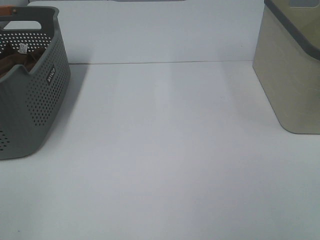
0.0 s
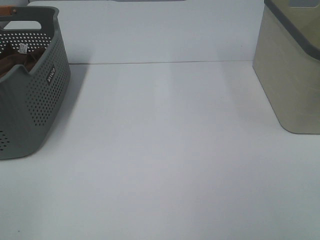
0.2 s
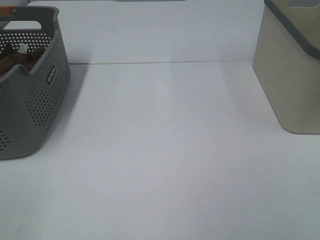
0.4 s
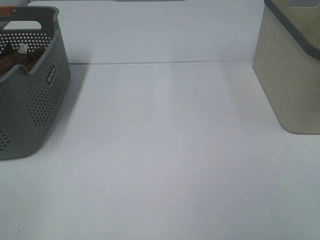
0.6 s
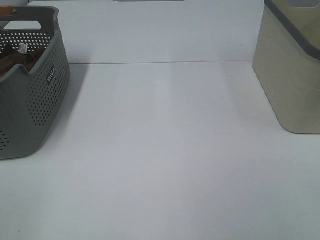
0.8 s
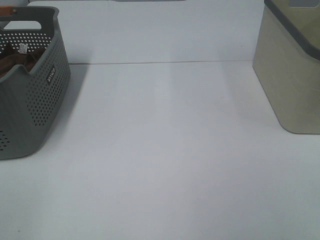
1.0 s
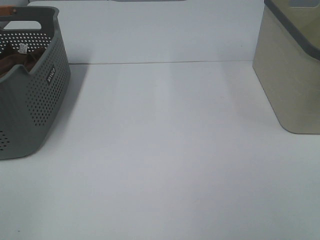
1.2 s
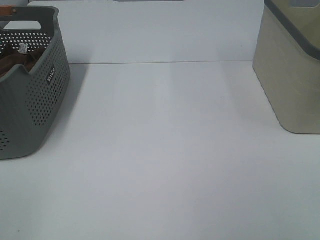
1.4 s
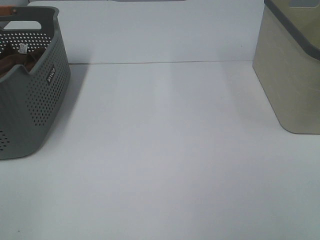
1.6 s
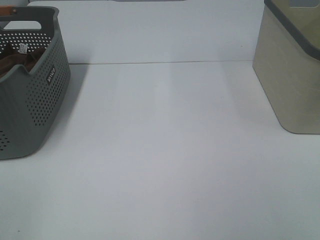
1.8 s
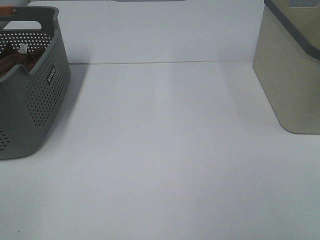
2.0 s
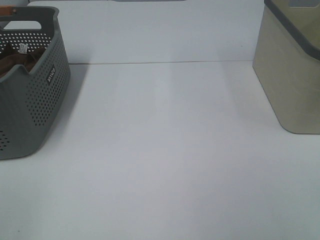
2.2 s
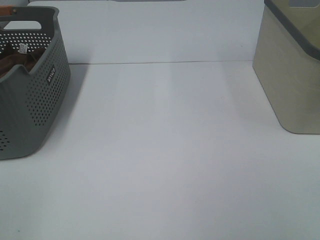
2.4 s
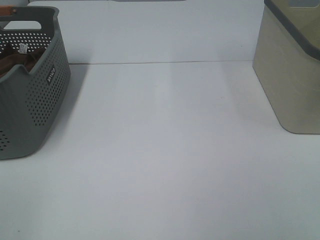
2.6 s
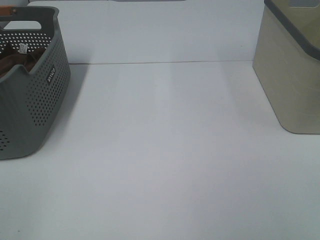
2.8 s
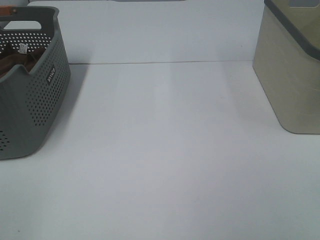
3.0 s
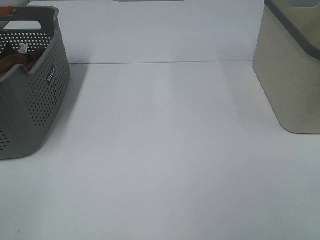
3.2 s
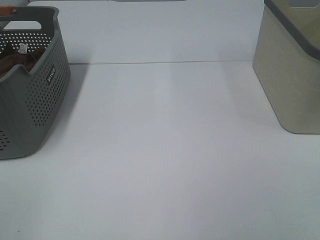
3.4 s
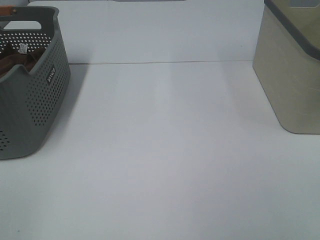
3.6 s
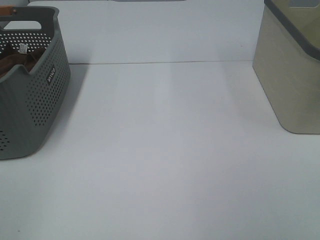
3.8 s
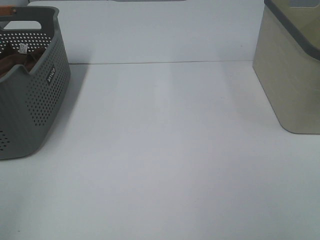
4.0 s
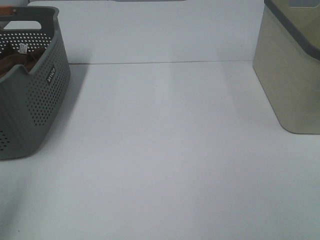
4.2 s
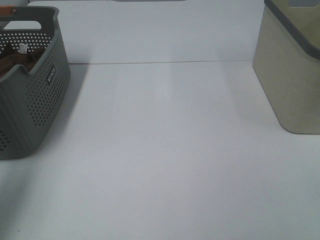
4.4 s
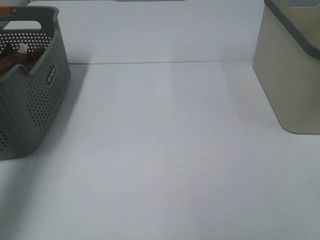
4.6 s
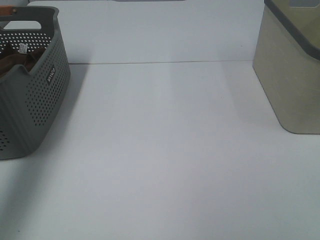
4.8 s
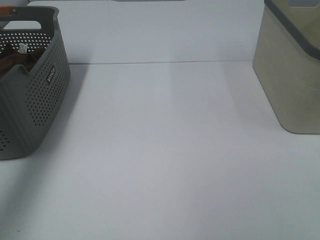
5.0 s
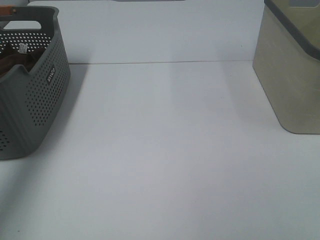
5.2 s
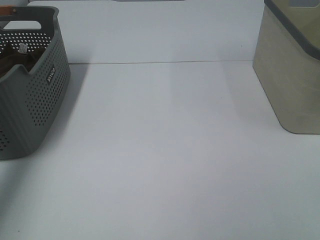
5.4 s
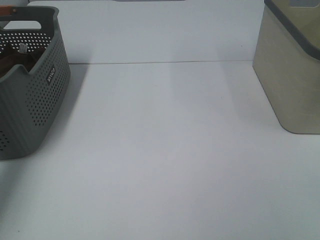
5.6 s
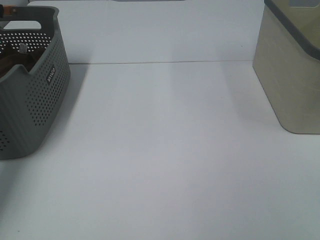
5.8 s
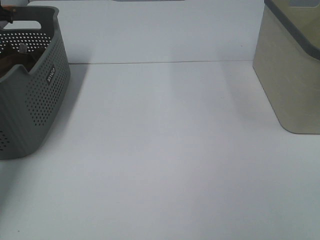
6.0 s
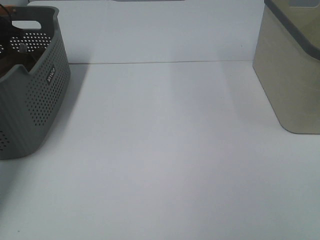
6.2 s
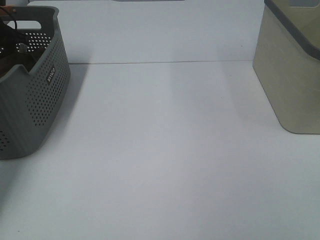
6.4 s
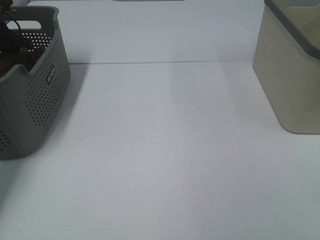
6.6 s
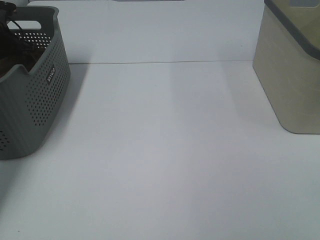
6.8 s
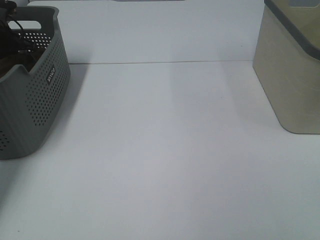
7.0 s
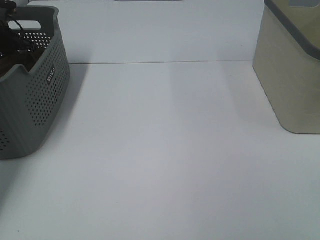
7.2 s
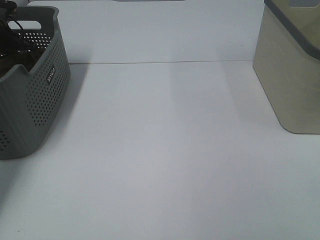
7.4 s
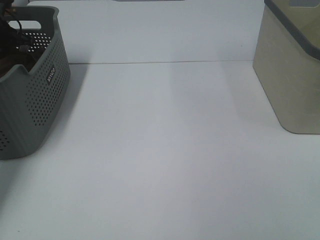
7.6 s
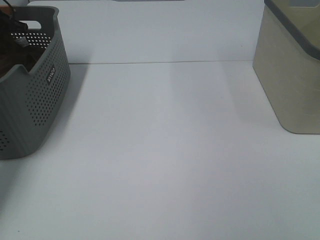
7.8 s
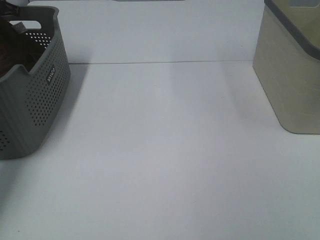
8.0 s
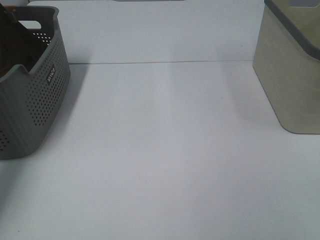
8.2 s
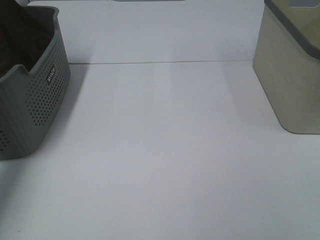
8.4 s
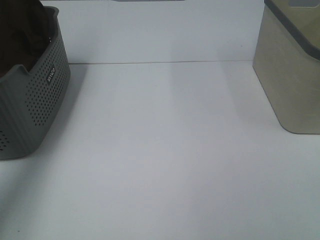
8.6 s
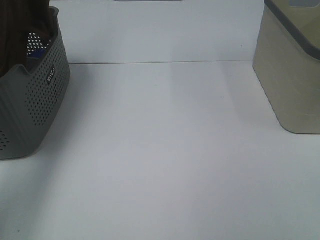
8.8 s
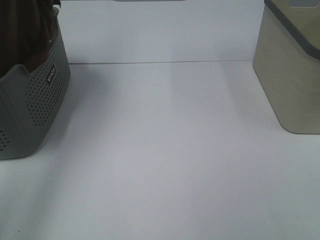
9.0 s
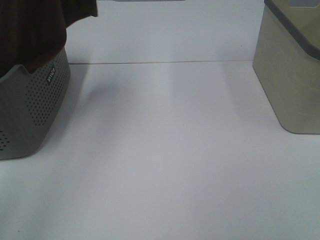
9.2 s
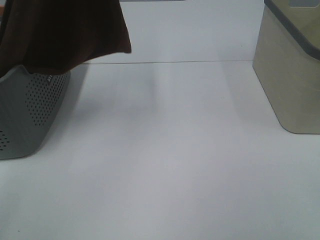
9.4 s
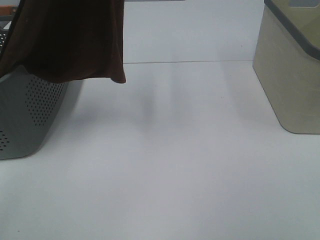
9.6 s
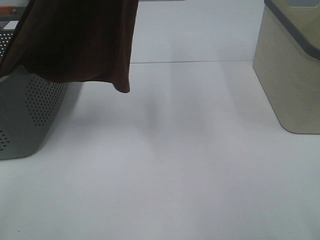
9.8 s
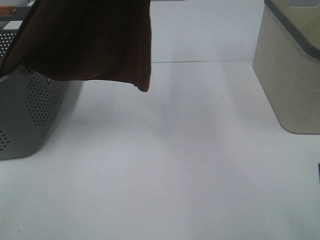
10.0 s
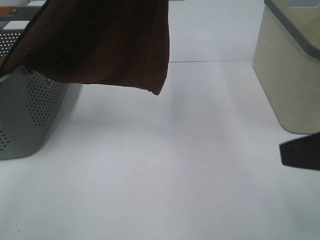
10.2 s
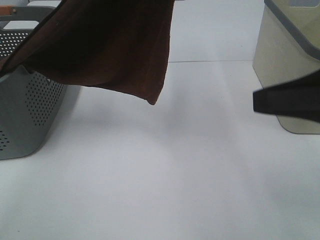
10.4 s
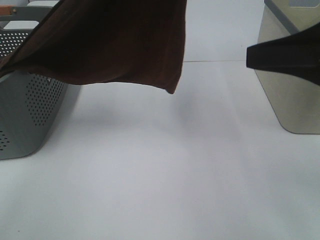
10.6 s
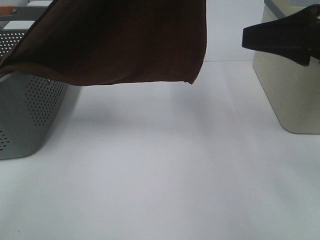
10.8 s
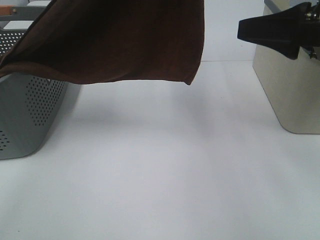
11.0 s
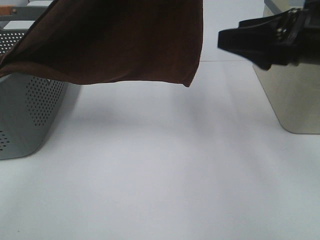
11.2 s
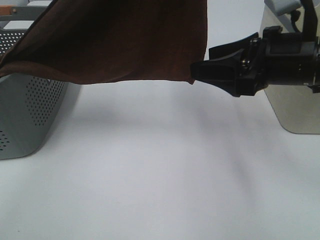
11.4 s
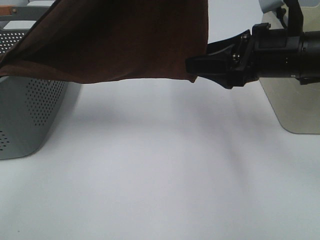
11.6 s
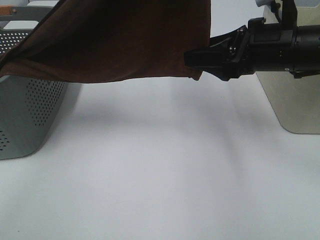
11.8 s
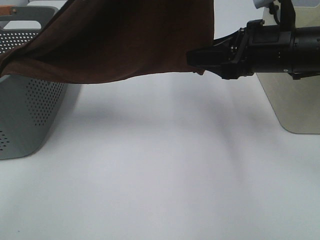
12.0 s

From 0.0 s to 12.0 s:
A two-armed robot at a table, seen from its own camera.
Task of the whole recording: Remove the towel and place it.
Step, from 8.8 s to 11.4 s: Right hand: grab a corner of the brown towel and straighten it.
From 0.0 s to 3.0 s: Both grippers stay about where they are.
From 3.0 s to 4.4 s: The left gripper shifts roughly 15 cm forward.
From 4.4 s to 6.0 s: The left gripper moves forward, some 35 cm.
From 6.0 s to 7.6 s: The left gripper goes some 5 cm downward, and closes its fingers.
From 7.6 s to 9.0 s: The left gripper heads upward, backward and to the right, covering some 40 cm.
From 9.0 s to 10.4 s: The right gripper travels forward by about 15 cm, while the left gripper moves to the right and backward, some 20 cm.
From 10.4 s to 12.0 s: The right gripper is displaced forward and downward by approximately 15 cm, and closes up.

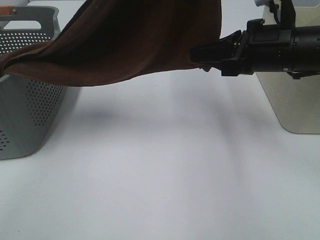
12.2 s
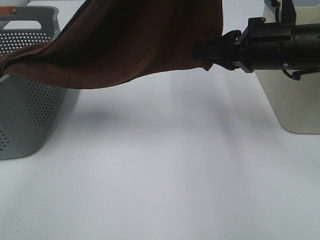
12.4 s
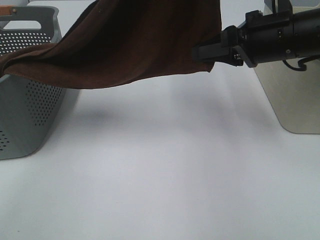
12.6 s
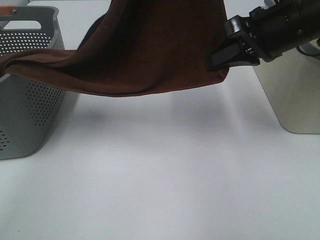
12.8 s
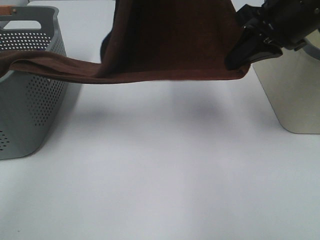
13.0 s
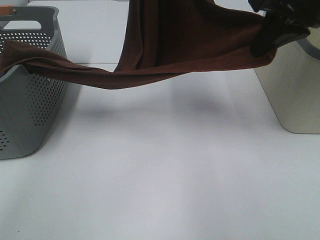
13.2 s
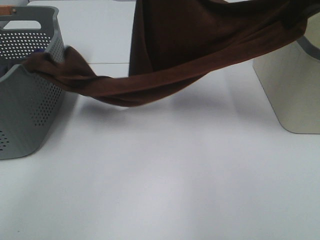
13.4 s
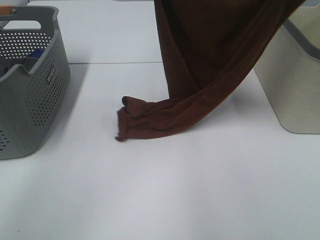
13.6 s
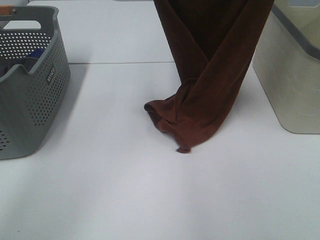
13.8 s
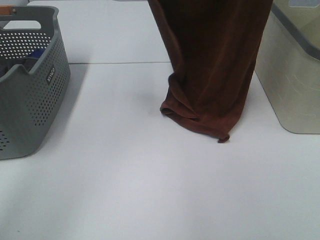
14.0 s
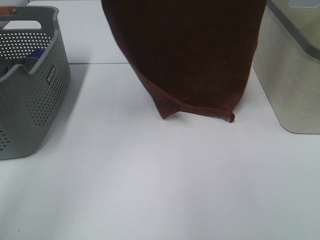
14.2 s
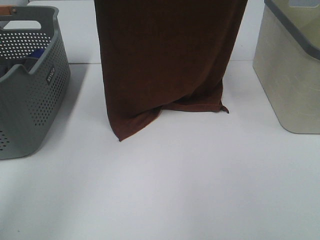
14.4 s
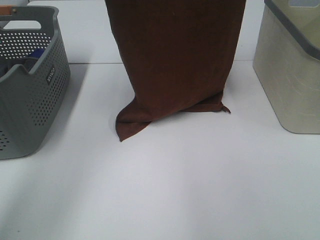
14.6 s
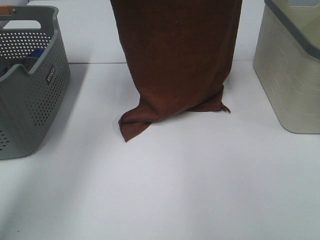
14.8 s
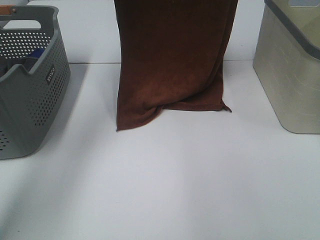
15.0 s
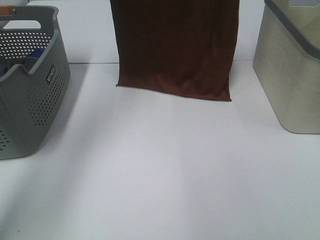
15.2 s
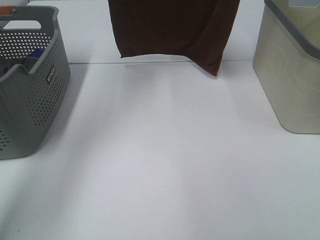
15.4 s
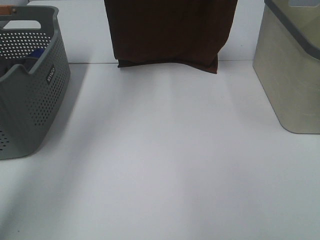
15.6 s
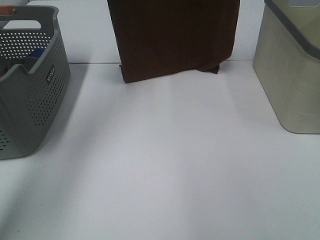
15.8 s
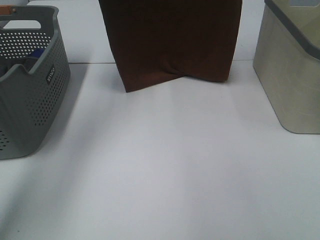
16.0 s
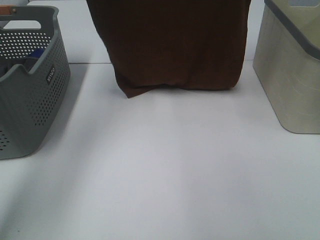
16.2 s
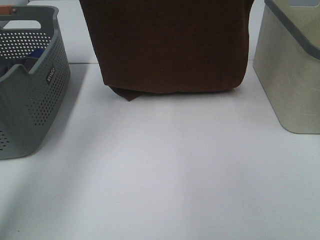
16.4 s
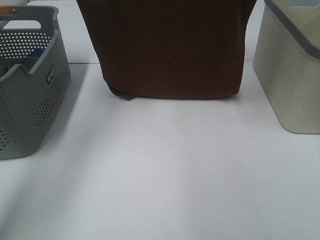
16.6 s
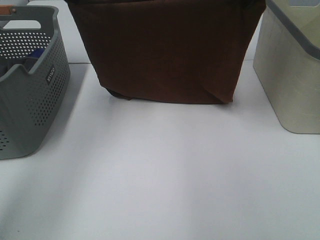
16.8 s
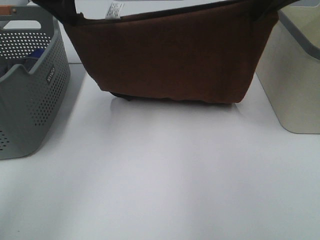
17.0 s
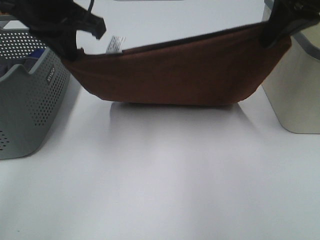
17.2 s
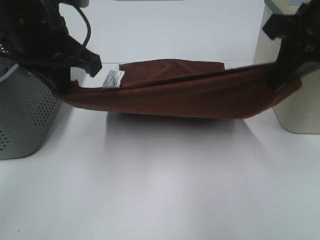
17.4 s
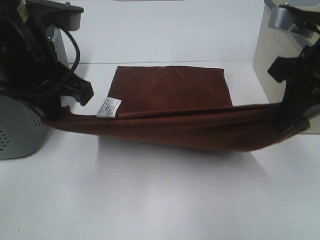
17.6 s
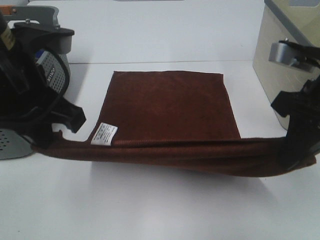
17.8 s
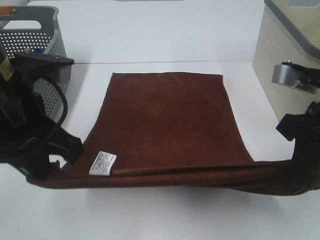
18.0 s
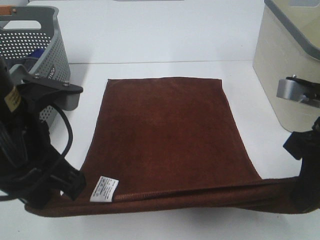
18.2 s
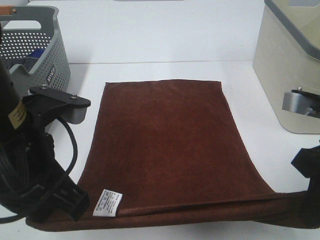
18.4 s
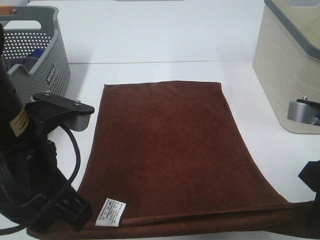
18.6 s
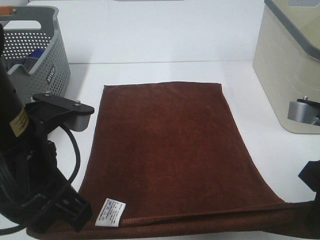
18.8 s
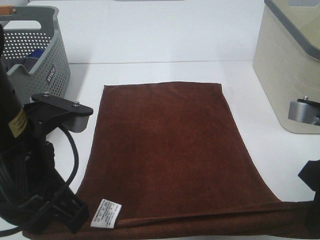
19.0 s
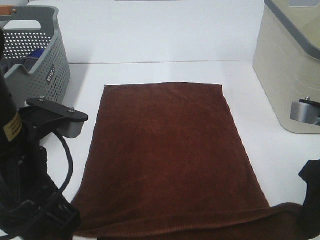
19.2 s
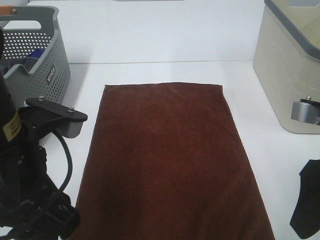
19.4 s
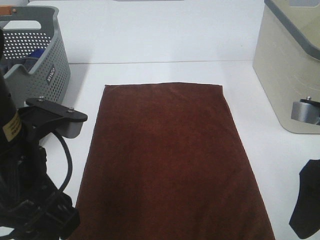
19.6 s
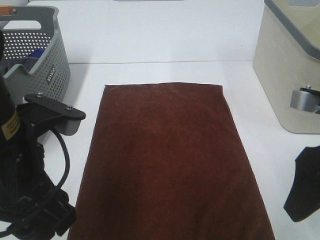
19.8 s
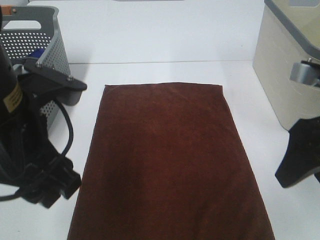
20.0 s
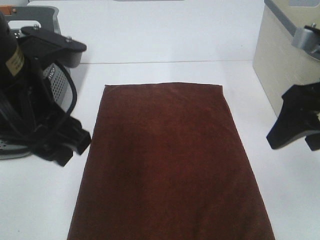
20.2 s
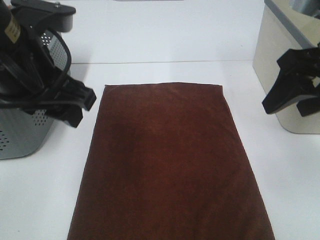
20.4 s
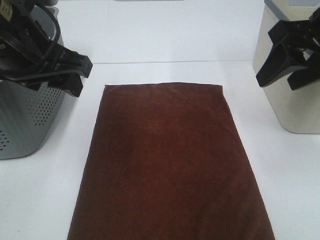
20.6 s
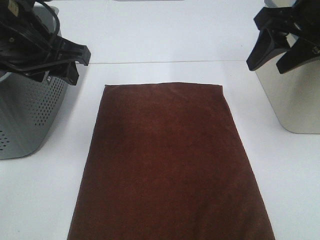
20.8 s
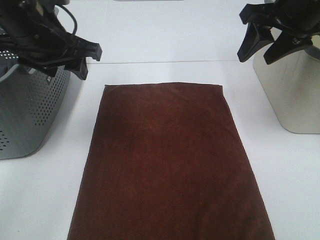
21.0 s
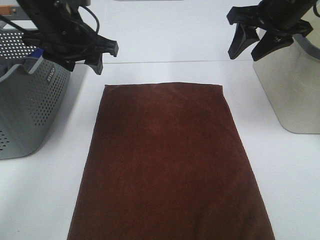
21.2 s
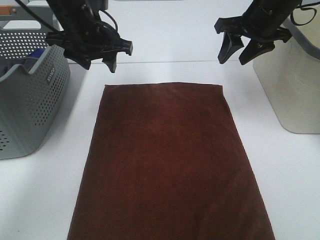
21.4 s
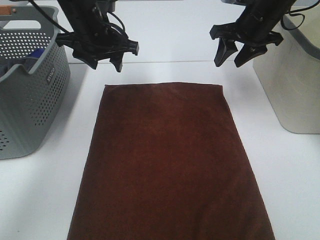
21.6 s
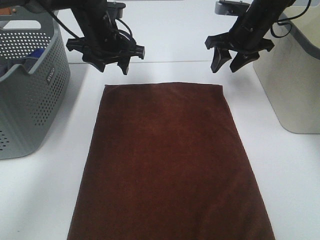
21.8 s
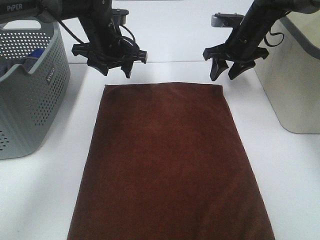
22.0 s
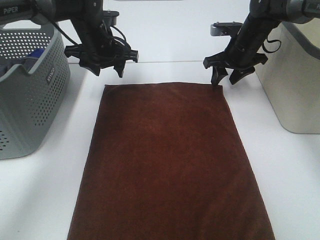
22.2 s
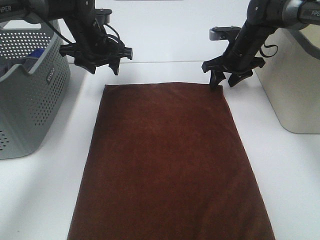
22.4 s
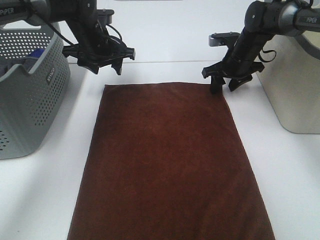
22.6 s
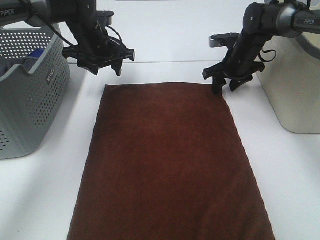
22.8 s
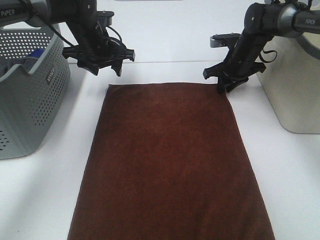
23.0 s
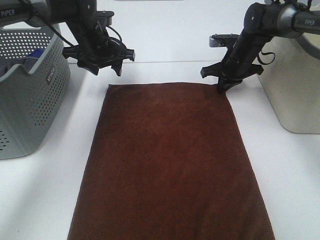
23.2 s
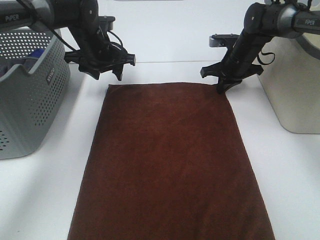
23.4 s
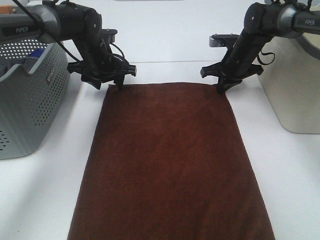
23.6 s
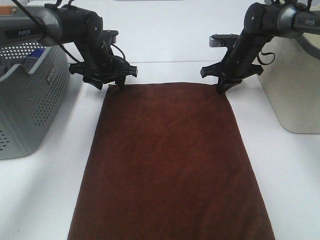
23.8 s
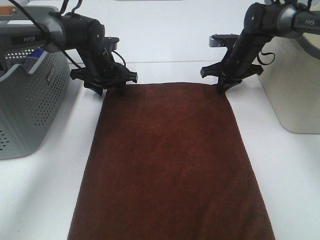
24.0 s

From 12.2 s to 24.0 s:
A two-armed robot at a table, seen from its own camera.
Task of the whole recording: Remove the towel and place it.
Step, from 12.2 s to 15.4 s: Left hand: spread the brown towel flat on the table.
Step, from 12.2 s to 15.4 s: Right hand: spread the brown towel flat on the table.
Step, from 15.6 s to 21.6 s: Left hand:adjust the brown towel.
Step, from 15.6 s to 21.6 s: Right hand:adjust the brown towel.
From 12.2 s to 13.6 s: The left gripper shifts some 15 cm forward and downward; the right gripper moves upward, roughly 20 cm.
From 13.6 s to 15.2 s: The left gripper swings up and down, roughly 10 cm each way, with 2 reversals, while the right gripper travels forward and upward by approximately 10 cm.
From 15.2 s to 16.6 s: The two grippers go some 10 cm downward.
From 16.6 s to 18.2 s: Both grippers travel together backward and downward, some 30 cm.
From 18.2 s to 19.6 s: The left gripper opens, while the right gripper opens up.
From 19.6 s to 21.0 s: Both grippers move forward, approximately 20 cm.
From 21.0 s to 22.6 s: The left gripper goes approximately 20 cm forward and downward. Meanwhile the right gripper heads downward and forward, covering approximately 25 cm.
From 22.6 s to 24.0 s: The left gripper heads downward, covering about 5 cm; the right gripper closes.
